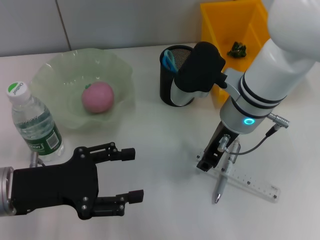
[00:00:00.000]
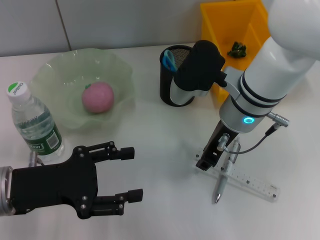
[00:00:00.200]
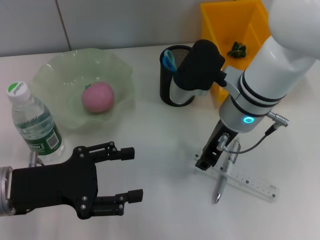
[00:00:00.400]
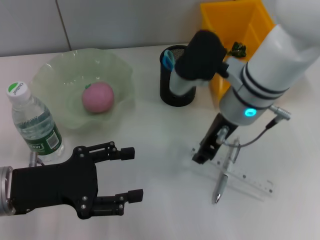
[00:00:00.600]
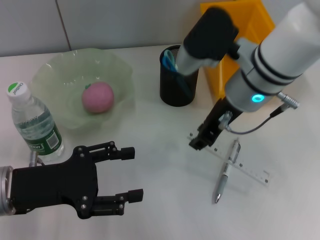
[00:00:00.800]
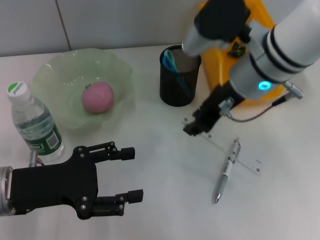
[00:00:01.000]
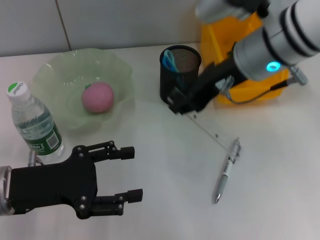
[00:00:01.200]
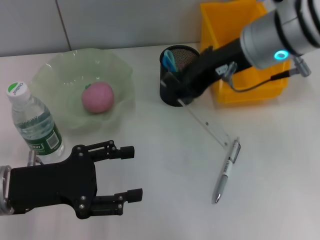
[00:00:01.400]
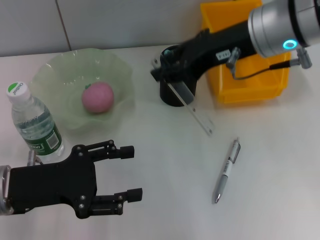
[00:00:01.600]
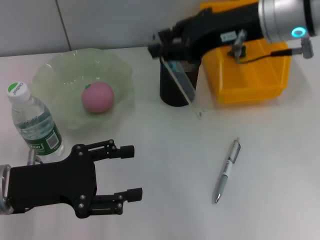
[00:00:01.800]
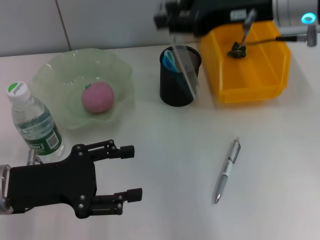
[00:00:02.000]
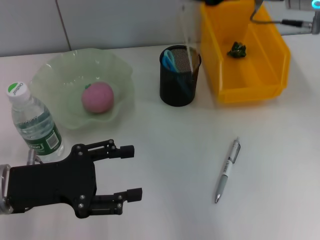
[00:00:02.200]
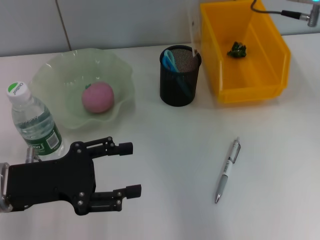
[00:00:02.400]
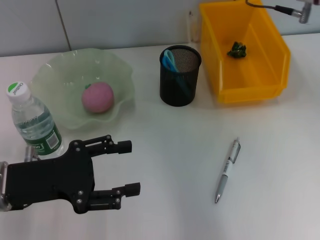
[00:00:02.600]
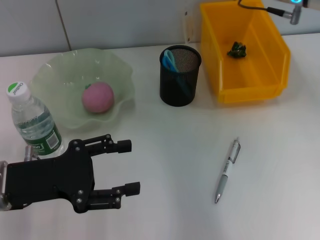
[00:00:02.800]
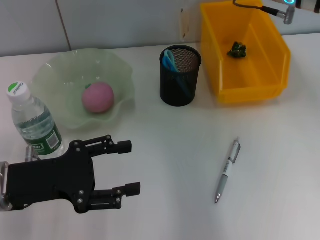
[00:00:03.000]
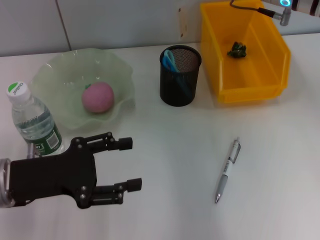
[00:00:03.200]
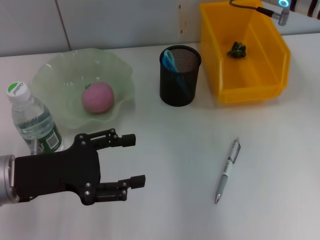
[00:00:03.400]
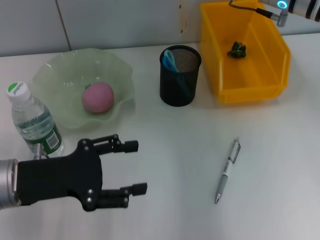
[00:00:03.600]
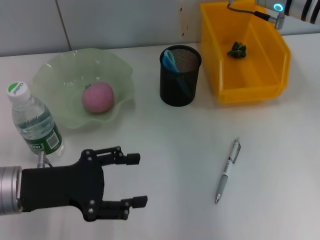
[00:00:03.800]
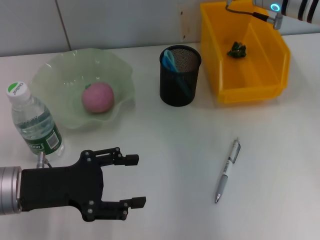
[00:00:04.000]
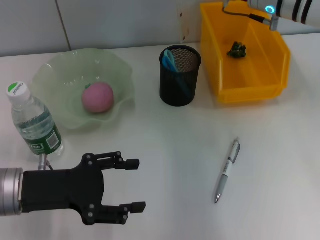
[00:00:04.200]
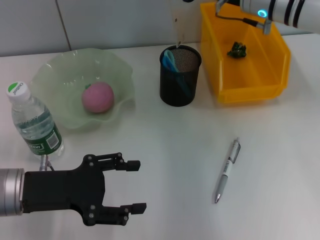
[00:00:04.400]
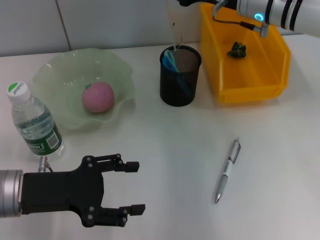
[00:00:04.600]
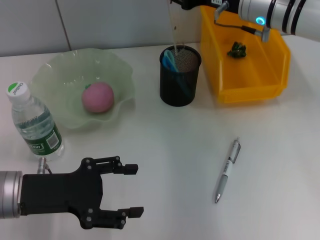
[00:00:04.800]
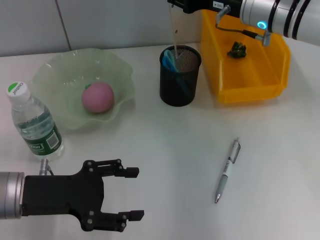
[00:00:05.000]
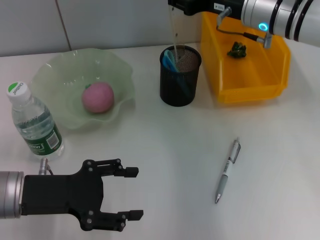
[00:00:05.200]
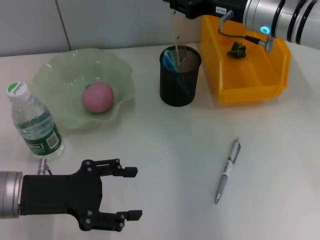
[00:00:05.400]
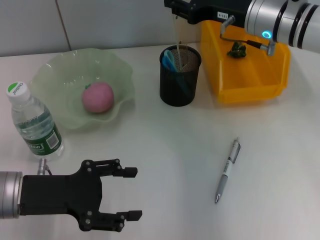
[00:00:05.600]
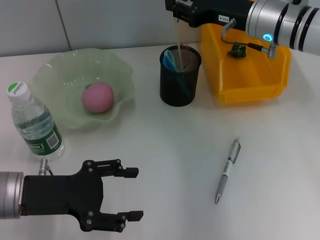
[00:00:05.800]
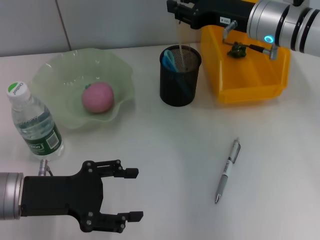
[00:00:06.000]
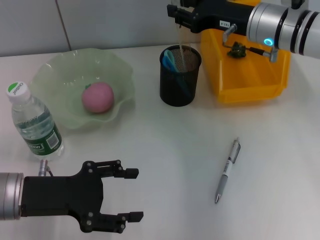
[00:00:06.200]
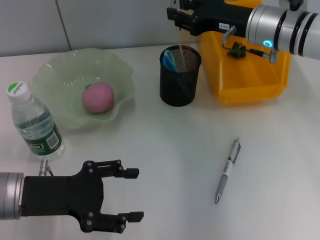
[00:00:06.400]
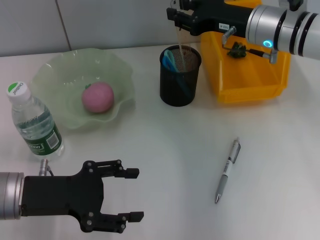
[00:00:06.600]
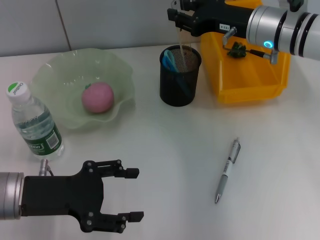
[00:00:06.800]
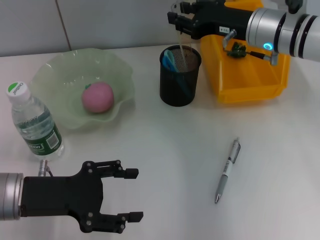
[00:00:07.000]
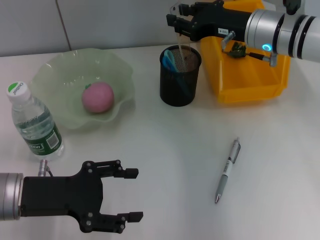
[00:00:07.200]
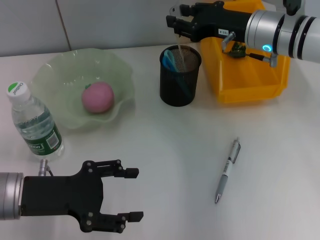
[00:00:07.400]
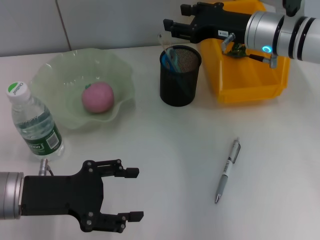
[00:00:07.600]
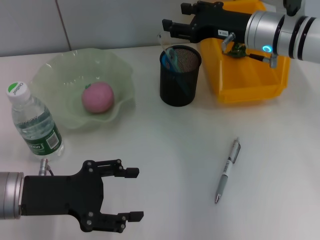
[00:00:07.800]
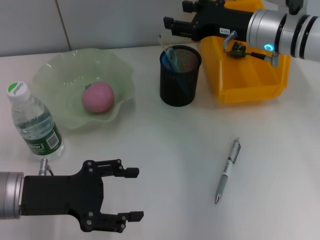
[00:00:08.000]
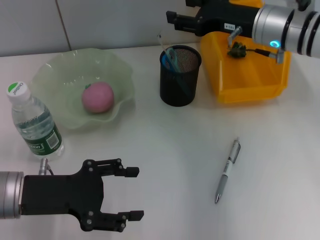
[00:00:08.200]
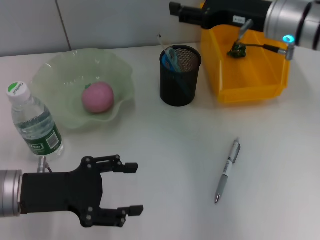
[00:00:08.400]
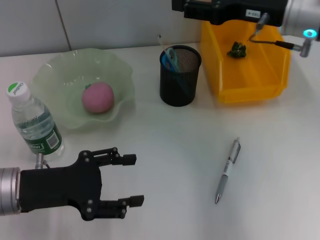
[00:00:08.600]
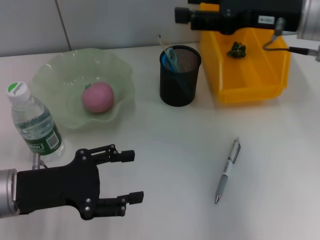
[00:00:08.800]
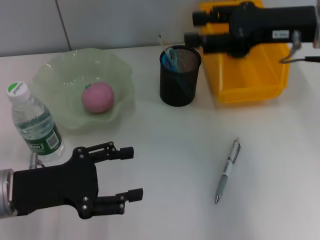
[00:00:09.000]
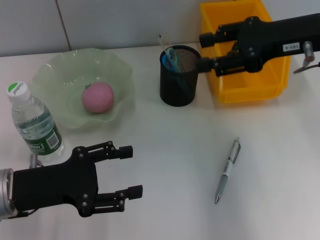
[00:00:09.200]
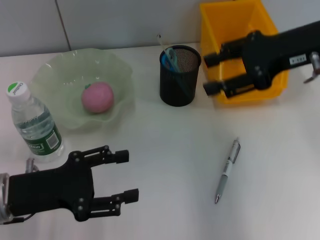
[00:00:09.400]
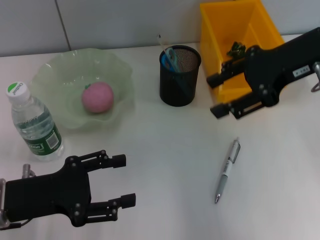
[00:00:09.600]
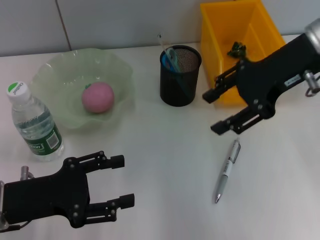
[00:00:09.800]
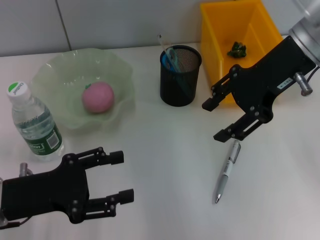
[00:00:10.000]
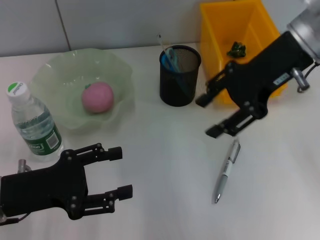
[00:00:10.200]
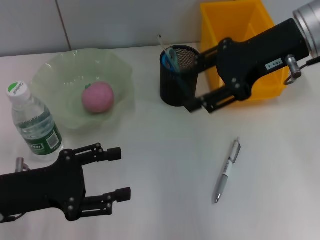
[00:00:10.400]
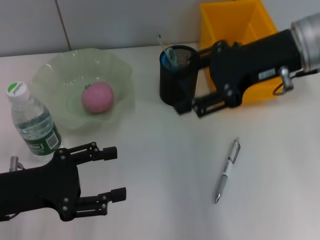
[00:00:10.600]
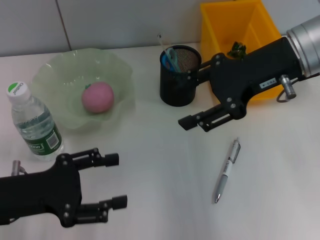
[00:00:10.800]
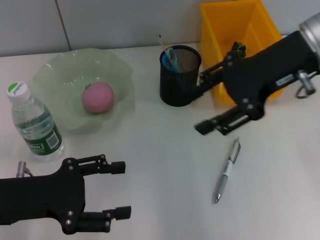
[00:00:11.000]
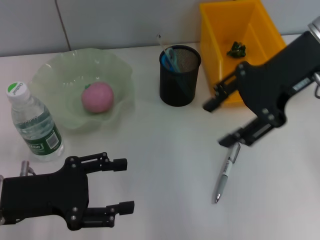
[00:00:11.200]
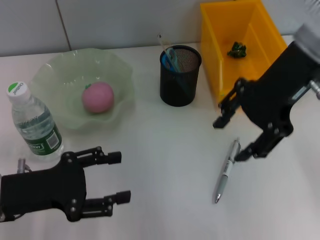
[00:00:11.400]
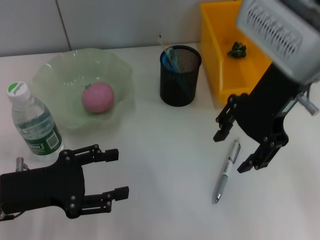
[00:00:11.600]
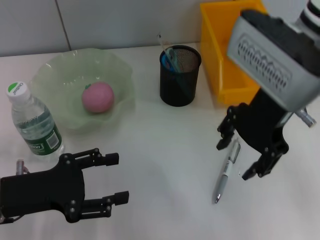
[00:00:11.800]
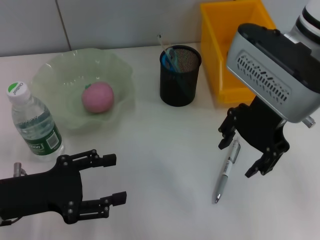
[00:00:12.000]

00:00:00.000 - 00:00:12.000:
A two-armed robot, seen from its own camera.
Step, 00:00:00.200 - 00:00:07.800: Place the ruler into the pen holder with the right hand.
00:00:00.000 - 00:00:01.600: The right gripper heads upward, covering about 10 cm.
00:00:01.600 - 00:00:03.000: The right gripper moves forward, roughly 5 cm.
00:00:03.000 - 00:00:04.400: The grippers make only small movements.
00:00:04.400 - 00:00:06.000: There are only small adjustments of the grippers.
00:00:06.000 - 00:00:07.600: Both grippers stay about where they are.
00:00:07.600 - 00:00:09.000: The right gripper moves upward and backward, roughly 10 cm.
00:00:10.400 - 00:00:12.000: The right gripper moves to the left, about 5 cm.

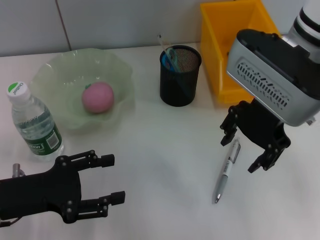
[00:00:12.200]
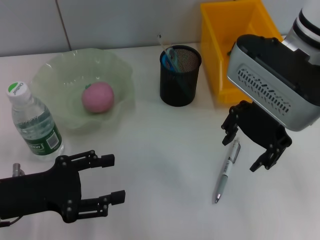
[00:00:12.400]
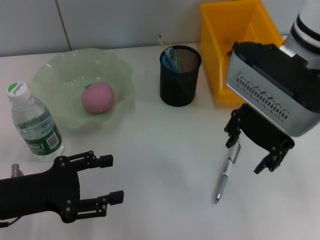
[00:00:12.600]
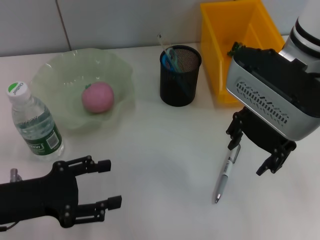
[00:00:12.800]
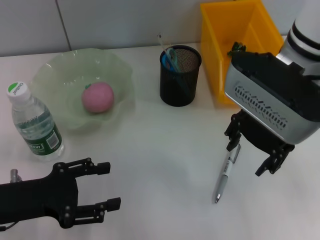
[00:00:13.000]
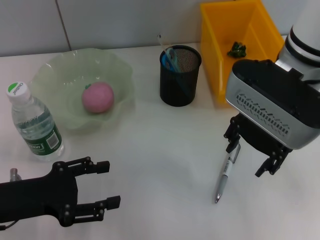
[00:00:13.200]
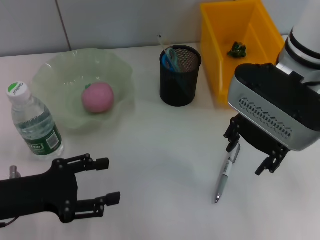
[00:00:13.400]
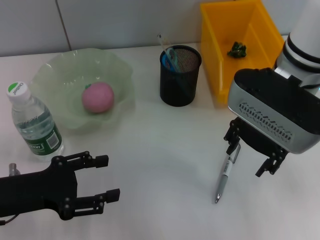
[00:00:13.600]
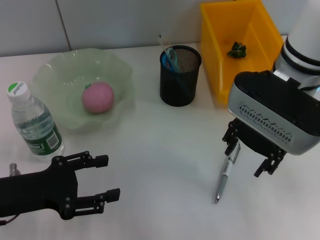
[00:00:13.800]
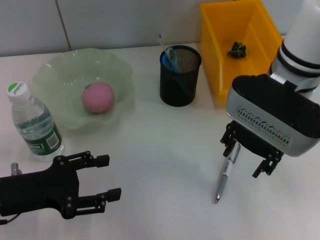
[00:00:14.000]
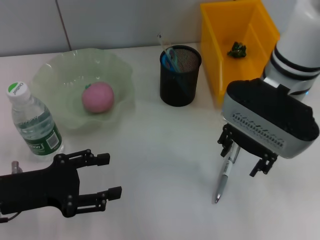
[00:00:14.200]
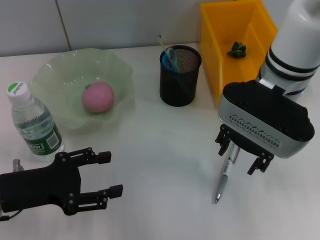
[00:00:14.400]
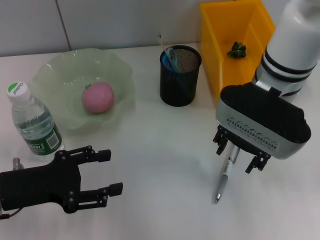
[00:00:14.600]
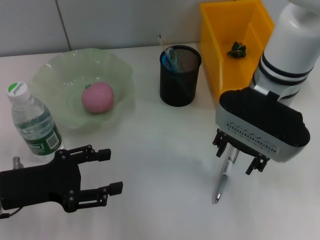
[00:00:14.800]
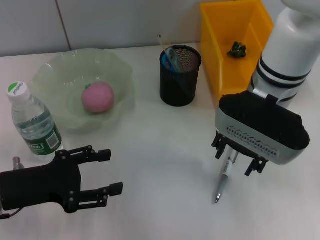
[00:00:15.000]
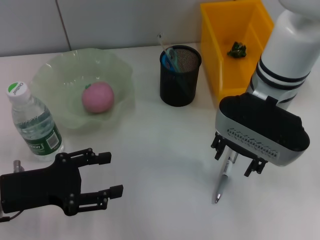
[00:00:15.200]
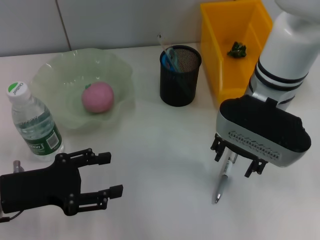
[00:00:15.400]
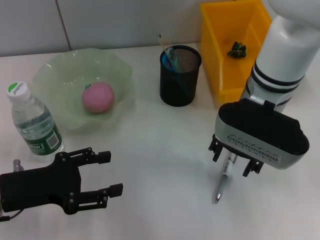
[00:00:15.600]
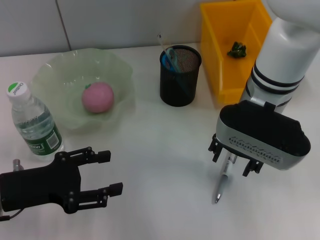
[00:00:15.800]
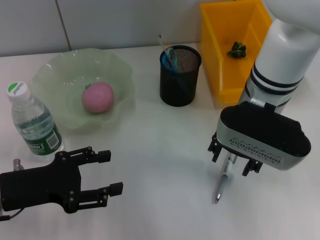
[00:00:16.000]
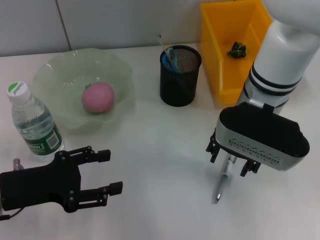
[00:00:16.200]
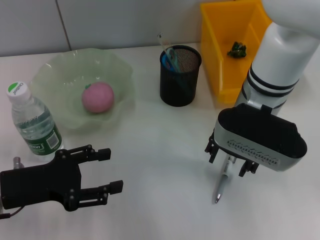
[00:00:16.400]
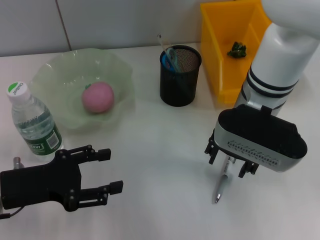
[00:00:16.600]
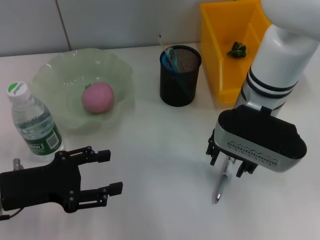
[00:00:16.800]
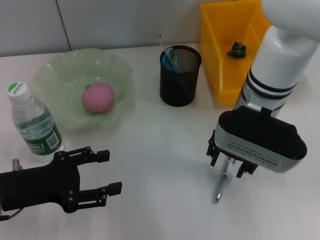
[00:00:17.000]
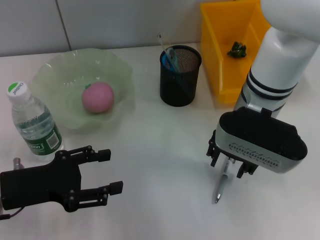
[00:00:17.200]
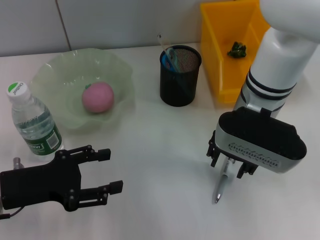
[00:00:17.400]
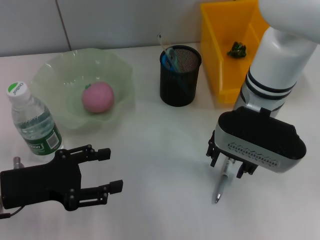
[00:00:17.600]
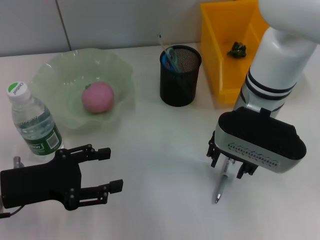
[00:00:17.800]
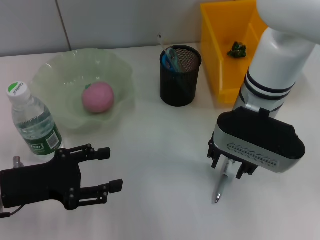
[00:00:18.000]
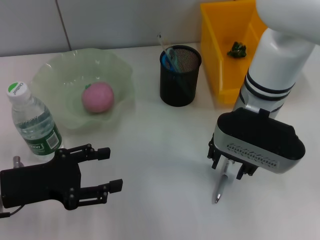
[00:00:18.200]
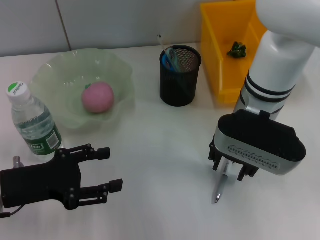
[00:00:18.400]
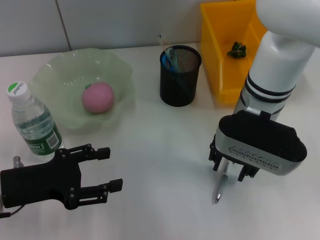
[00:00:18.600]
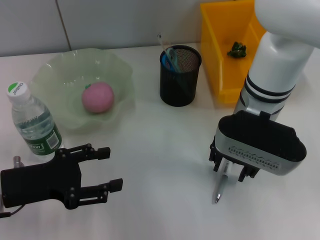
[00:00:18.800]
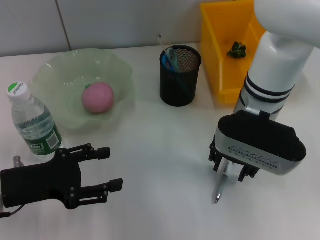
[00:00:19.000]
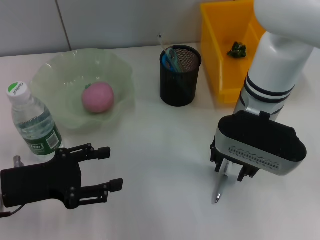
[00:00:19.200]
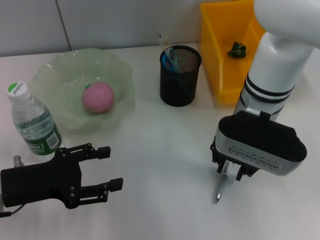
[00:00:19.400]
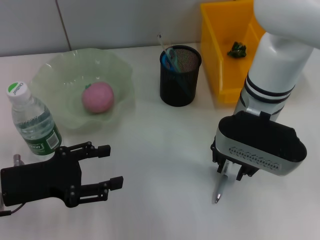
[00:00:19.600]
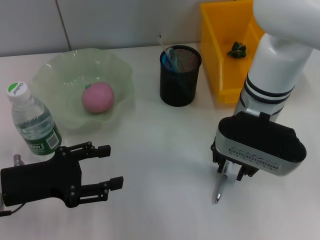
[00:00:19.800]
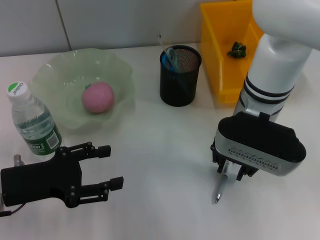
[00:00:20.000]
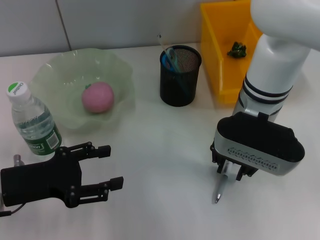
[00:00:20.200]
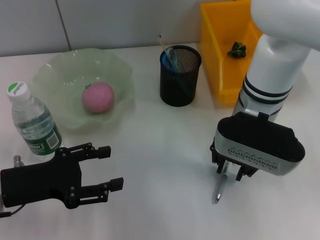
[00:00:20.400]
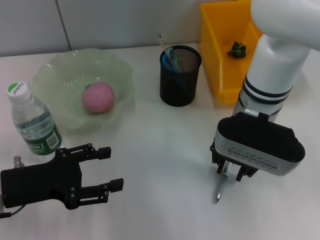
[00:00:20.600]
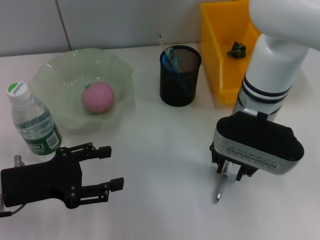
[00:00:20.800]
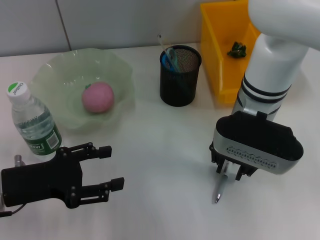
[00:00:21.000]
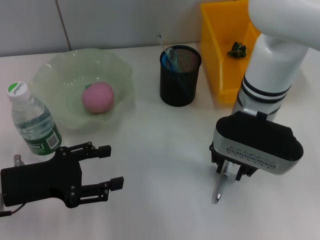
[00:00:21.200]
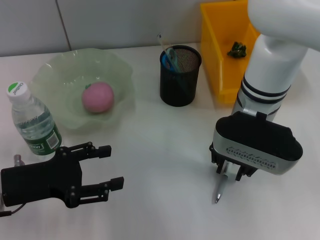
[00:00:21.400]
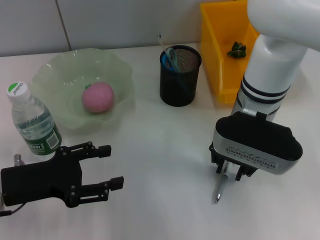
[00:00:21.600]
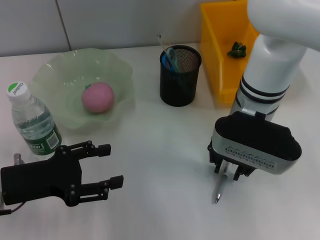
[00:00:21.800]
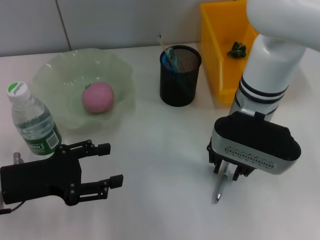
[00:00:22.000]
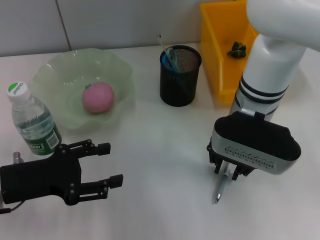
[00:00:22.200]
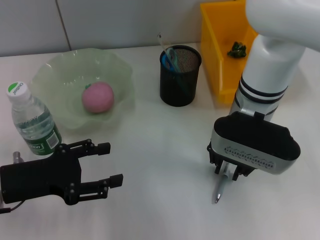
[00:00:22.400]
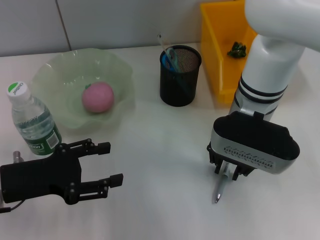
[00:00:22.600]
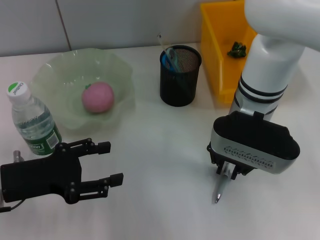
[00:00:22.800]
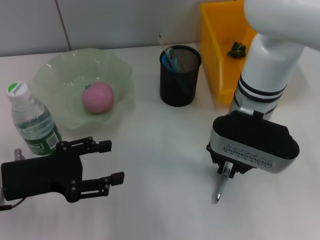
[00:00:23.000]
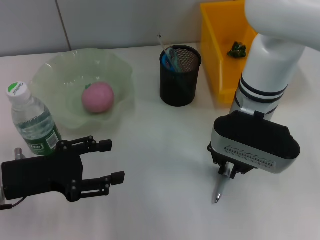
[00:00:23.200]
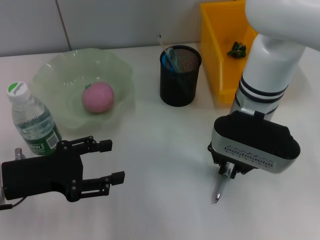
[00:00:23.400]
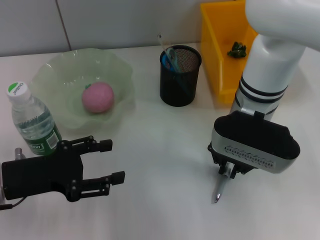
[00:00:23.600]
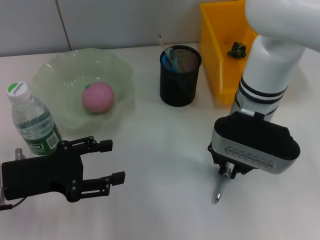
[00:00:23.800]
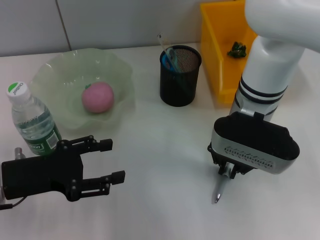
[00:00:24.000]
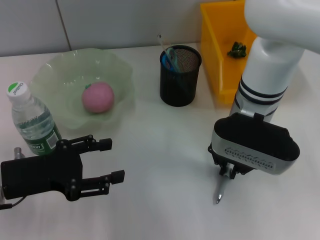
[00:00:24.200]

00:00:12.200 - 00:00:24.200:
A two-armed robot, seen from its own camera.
Step, 00:00:12.200 - 00:00:24.200: Grab the gray spring-action pen with the right hand.
00:00:12.200 - 00:00:13.800: There are only small adjustments of the grippers.
00:00:13.800 - 00:00:16.600: The grippers make only small movements.
00:00:16.600 - 00:00:19.800: Both grippers stay about where they are.
00:00:19.800 - 00:00:24.200: Both grippers stay about where they are.
